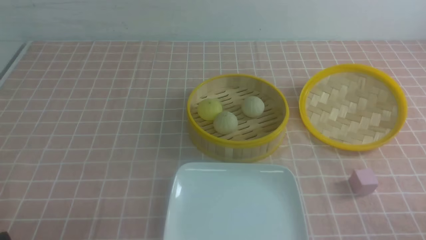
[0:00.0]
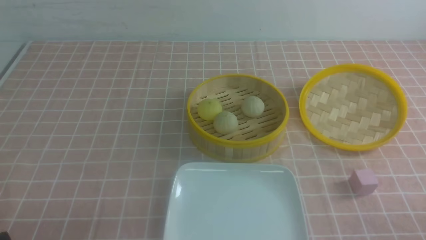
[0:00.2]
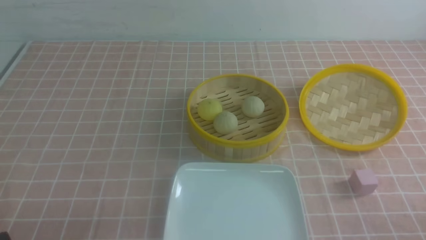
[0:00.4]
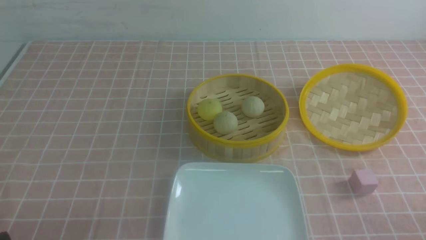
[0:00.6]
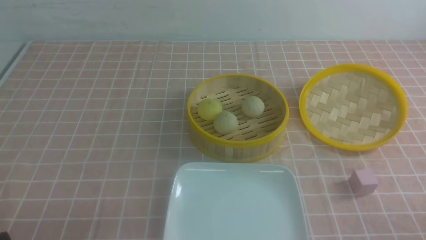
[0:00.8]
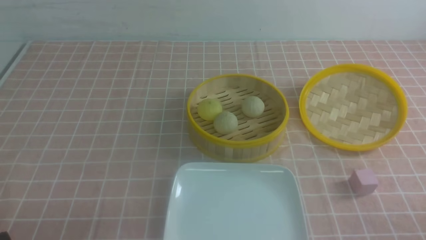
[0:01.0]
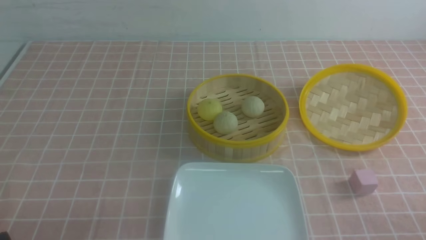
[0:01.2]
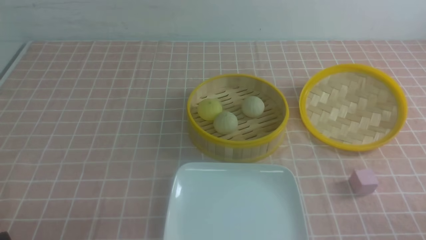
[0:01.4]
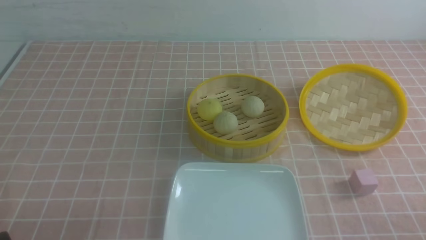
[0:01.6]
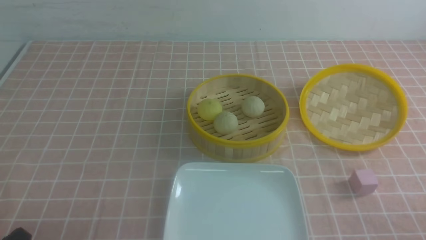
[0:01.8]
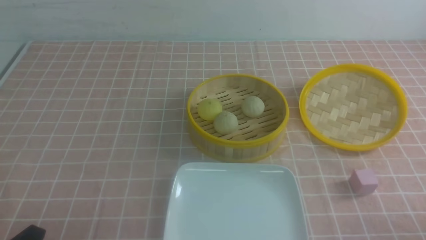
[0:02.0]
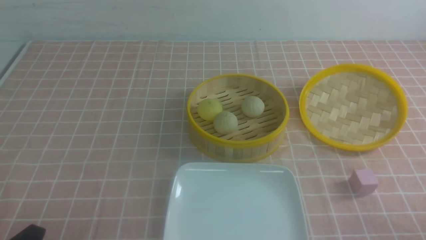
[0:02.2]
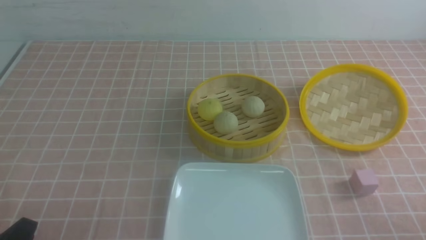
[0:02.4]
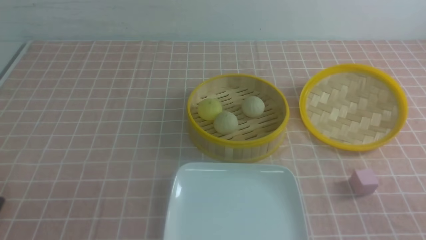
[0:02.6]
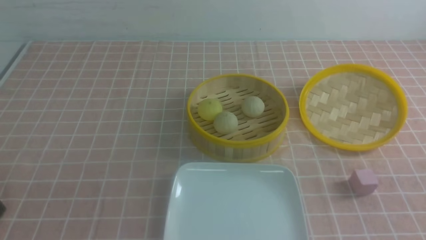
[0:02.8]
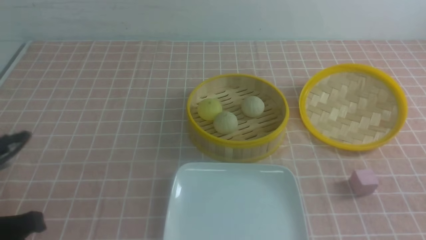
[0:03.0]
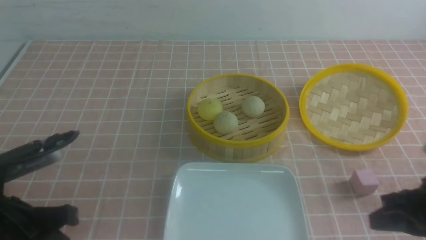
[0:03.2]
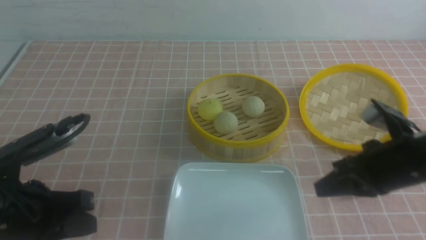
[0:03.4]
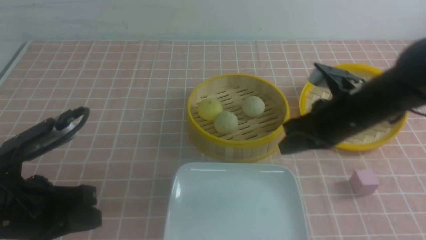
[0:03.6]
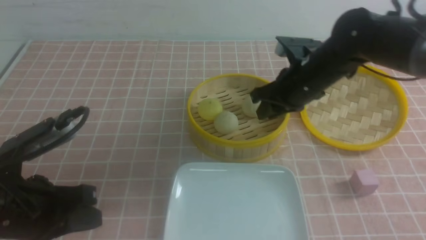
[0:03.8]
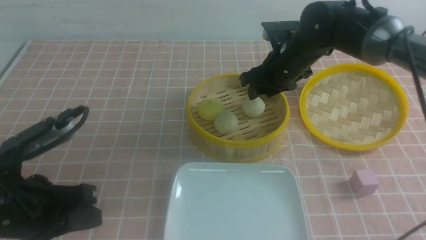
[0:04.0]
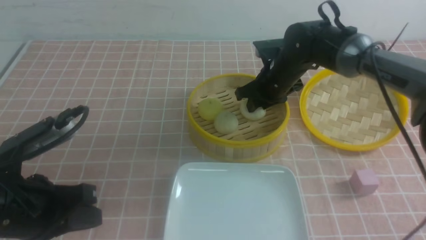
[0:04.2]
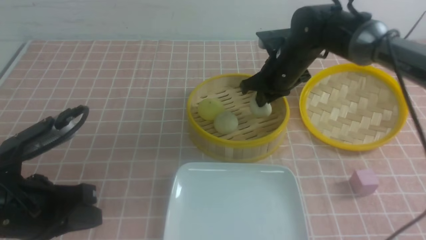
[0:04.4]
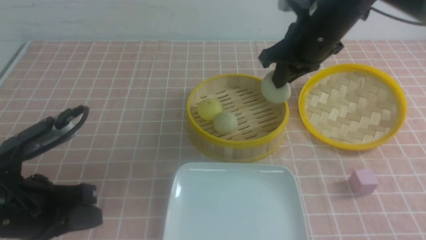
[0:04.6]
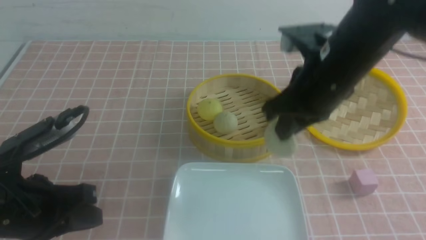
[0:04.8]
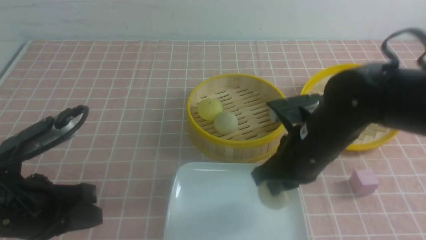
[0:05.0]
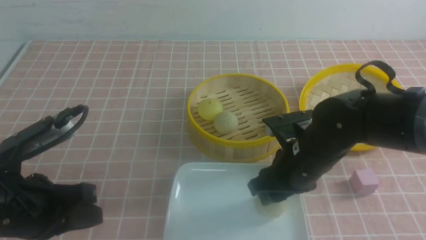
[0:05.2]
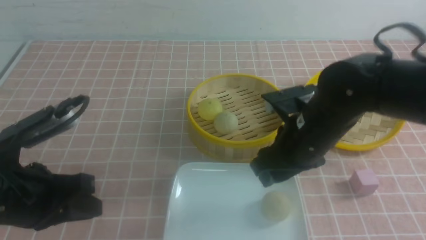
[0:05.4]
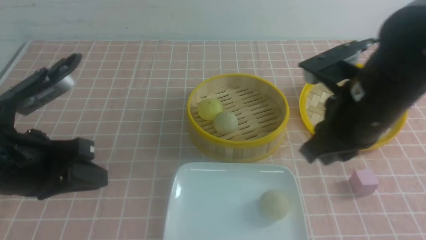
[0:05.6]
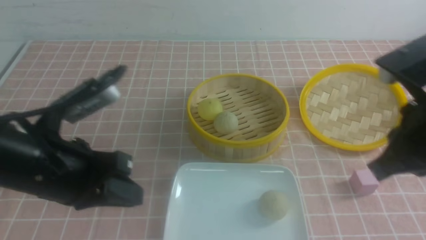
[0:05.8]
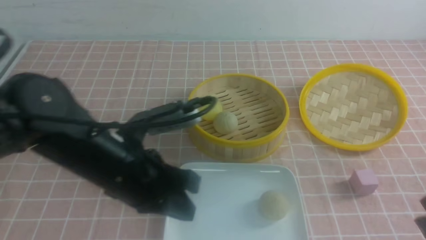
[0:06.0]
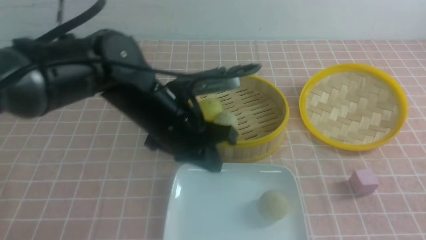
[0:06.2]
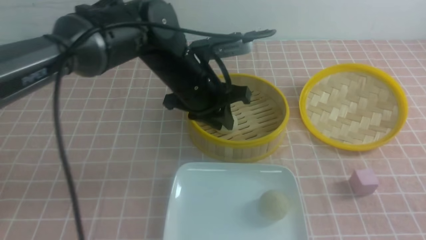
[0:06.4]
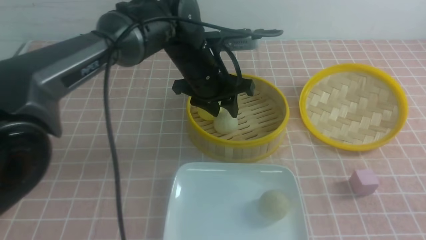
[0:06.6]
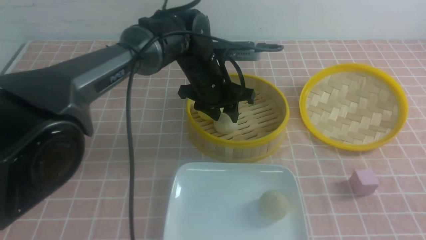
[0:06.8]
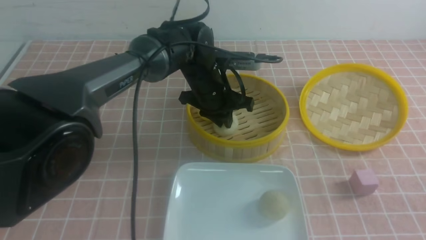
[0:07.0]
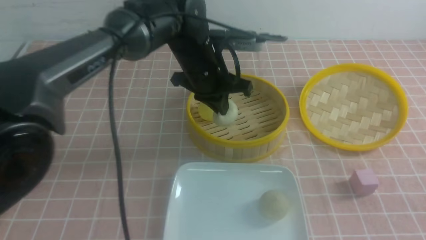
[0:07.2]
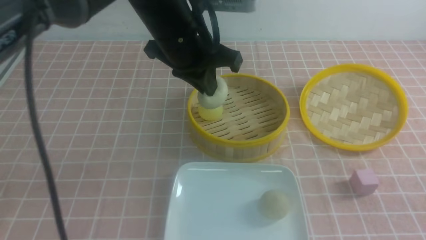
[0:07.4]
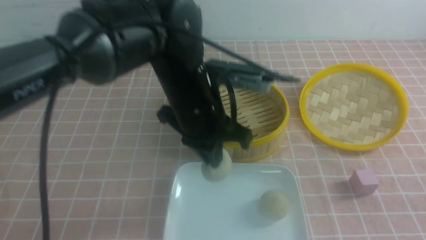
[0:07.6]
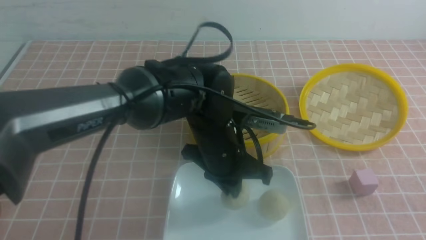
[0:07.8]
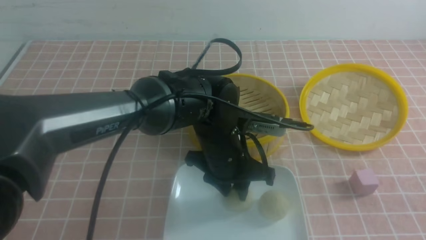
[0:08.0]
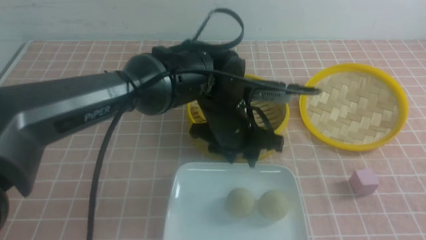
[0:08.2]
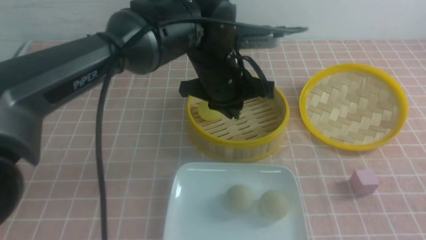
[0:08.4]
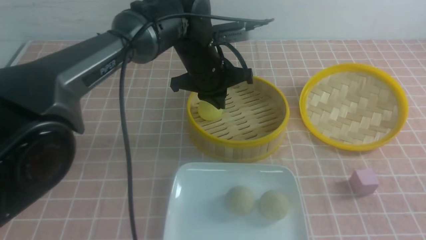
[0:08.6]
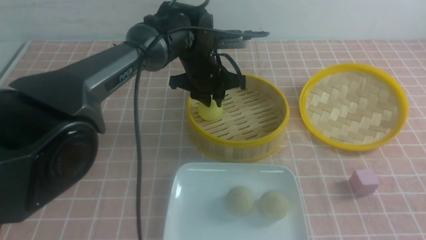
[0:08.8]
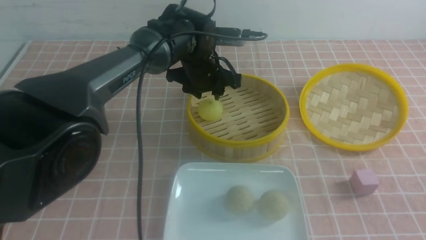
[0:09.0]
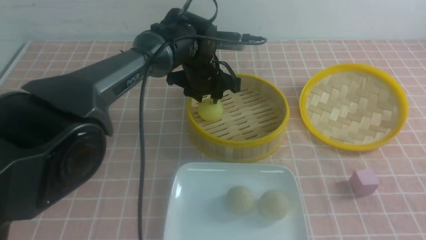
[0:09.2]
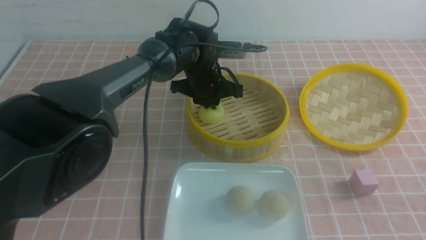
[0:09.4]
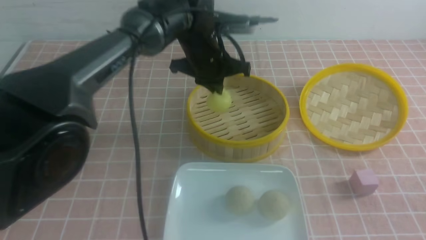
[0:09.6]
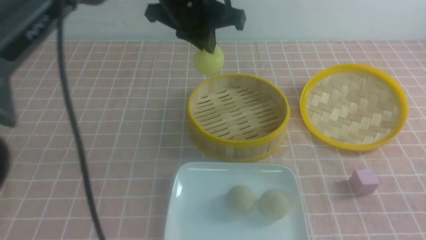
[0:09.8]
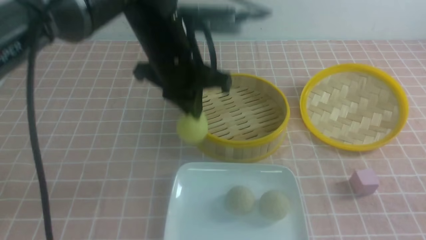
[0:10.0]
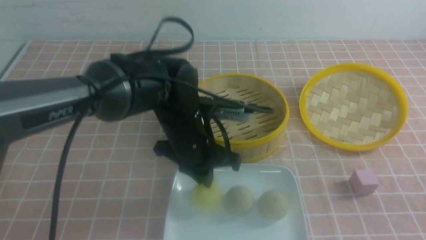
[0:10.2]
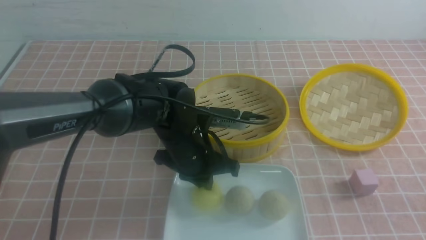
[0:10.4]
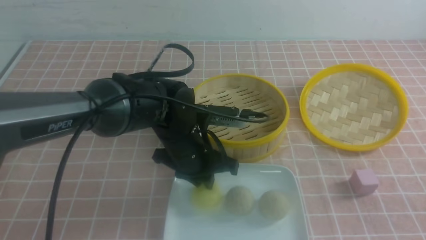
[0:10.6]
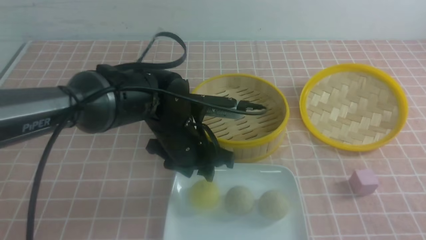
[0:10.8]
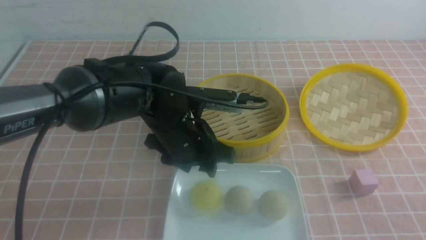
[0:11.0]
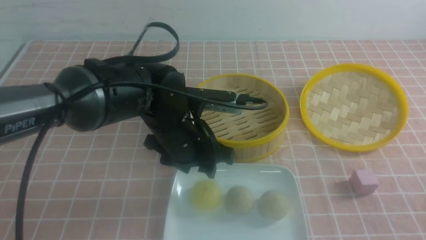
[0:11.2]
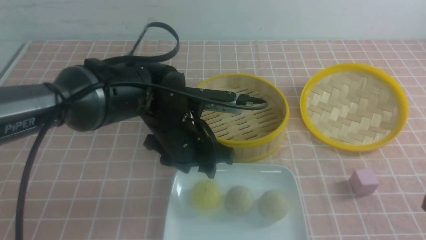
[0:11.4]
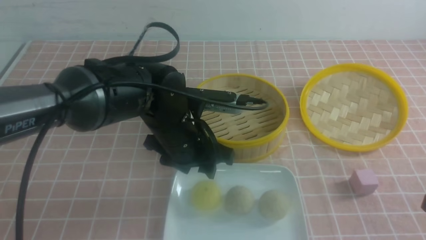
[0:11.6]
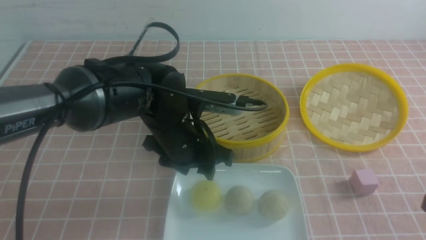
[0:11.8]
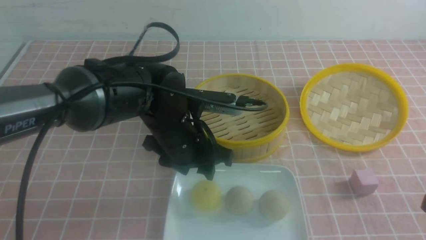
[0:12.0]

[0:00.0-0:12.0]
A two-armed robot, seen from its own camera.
Step, 0:00.0 to 0:04.2: use the right arm to grab the steamed stuffed bun that is closest to it.
Step, 0:04.4 to 0:05.4: use the right arm to put the steamed stuffed bun into the plate.
Step, 0:05.6 to 0:07.0: use the left arm to grab the steamed stuffed bun that is closest to it.
Step, 0:07.2 to 0:08.0: use the left arm to put the steamed stuffed bun into the plate.
Step, 0:08.2 to 0:09.4: use the left arm to grab the steamed stuffed bun that is closest to it.
Step, 0:09.6 to 0:10.8: use the left arm to put the steamed stuffed bun into the plate.
0:01.6 to 0:03.0: The left gripper moves upward and forward, about 10 cm, and closes.
0:03.0 to 0:04.4: The left gripper changes place by some 5 cm, while the right gripper heads forward and to the left, covering approximately 35 cm, and opens and closes again.
0:04.4 to 0:06.0: The right gripper goes roughly 30 cm backward and to the right, and opens, then closes again. The left gripper is displaced to the right and forward by some 15 cm.
0:06.0 to 0:07.6: The right gripper shifts by roughly 5 cm; the left gripper is displaced to the right and forward by roughly 10 cm, and opens and closes again.
0:07.6 to 0:09.0: The left gripper travels forward by roughly 15 cm, and opens its fingers.
0:09.0 to 0:10.4: The left gripper is displaced backward by some 15 cm, travels upward and back again, approximately 10 cm each way, and closes up.
0:10.4 to 0:12.0: The right gripper shifts by approximately 5 cm, and closes its fingers, while the left gripper opens.

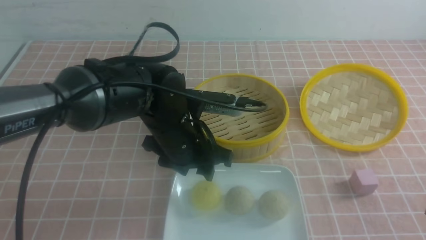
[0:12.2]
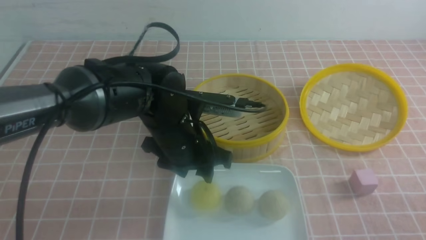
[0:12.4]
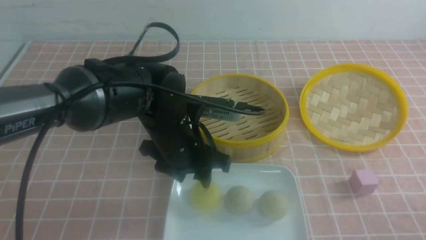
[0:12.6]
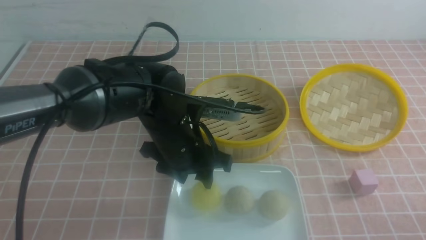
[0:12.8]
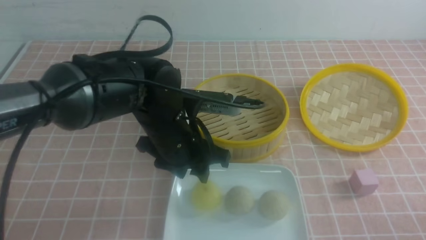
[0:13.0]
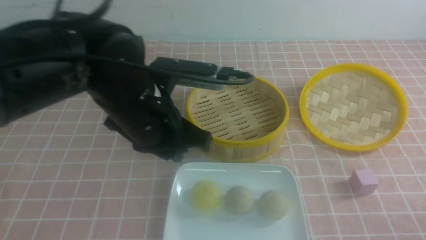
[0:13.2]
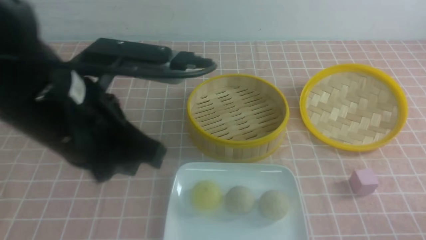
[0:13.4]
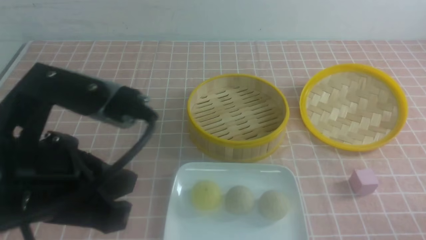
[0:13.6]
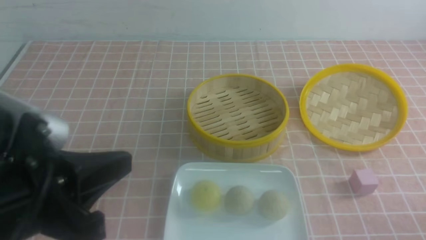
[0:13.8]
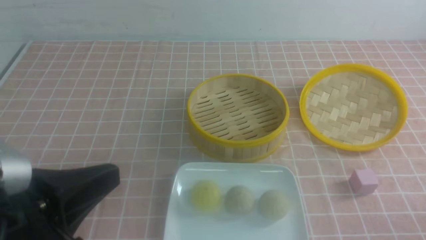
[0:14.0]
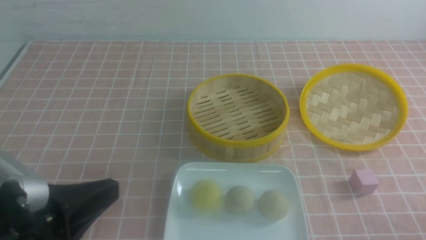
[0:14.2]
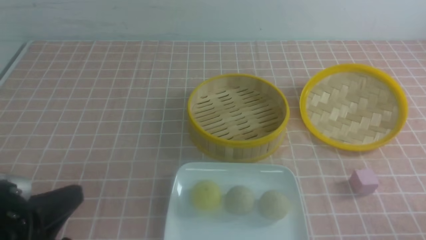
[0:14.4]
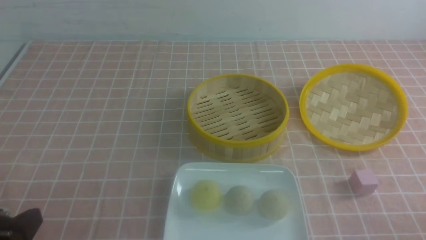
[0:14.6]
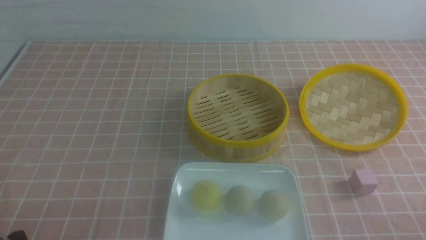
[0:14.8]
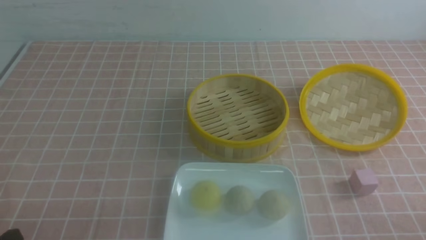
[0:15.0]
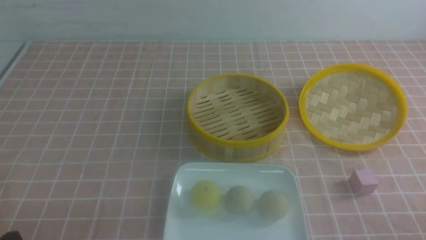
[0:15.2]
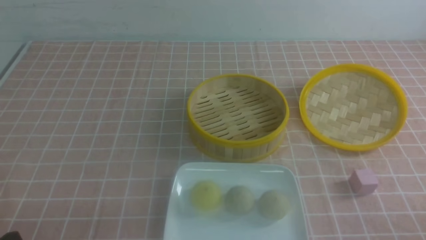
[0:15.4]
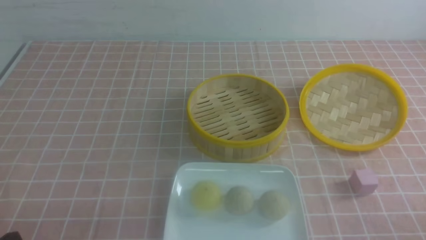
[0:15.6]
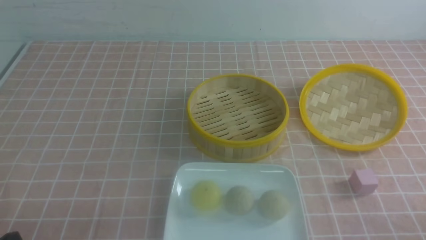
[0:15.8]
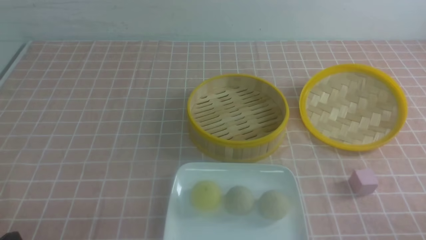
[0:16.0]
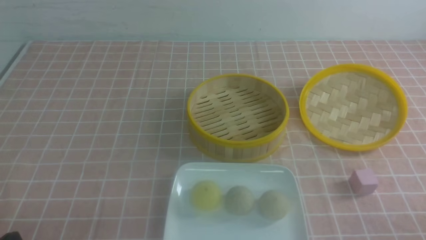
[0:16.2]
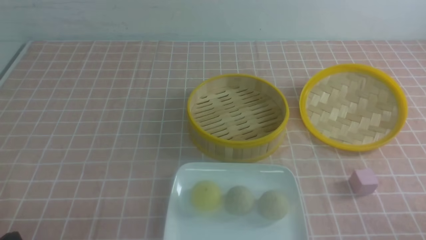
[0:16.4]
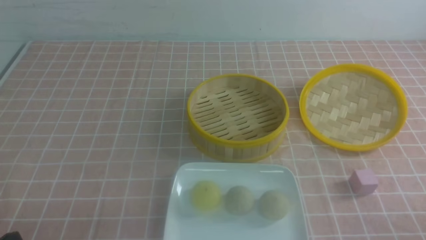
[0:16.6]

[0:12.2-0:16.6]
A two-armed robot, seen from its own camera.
0:12.2 to 0:13.6: The left gripper heads backward, upward and to the left, covering some 25 cm, and closes its fingers, while the right gripper shifts approximately 5 cm downward.
0:13.6 to 0:15.2: The left gripper shifts roughly 20 cm downward, to the left and backward.
0:15.2 to 0:16.6: Both grippers stay about where they are.
